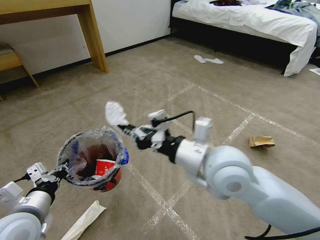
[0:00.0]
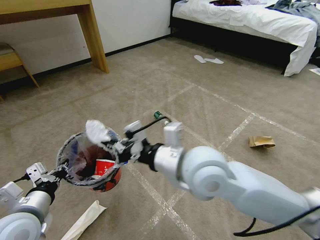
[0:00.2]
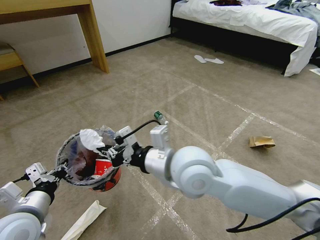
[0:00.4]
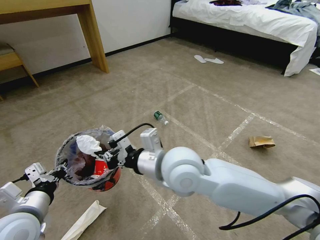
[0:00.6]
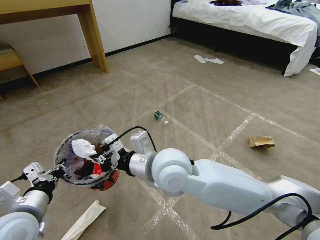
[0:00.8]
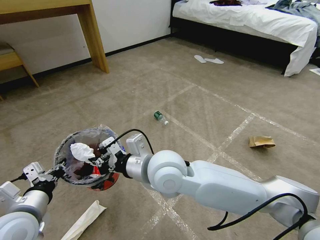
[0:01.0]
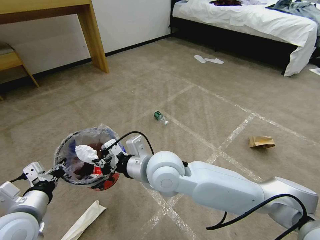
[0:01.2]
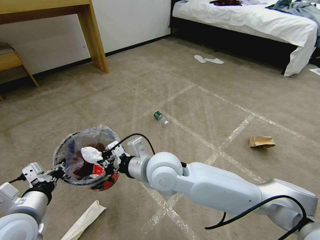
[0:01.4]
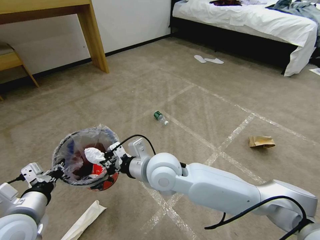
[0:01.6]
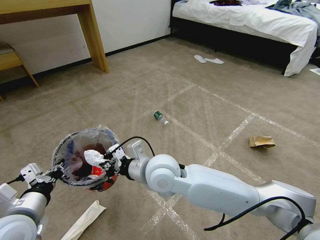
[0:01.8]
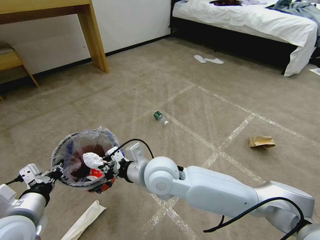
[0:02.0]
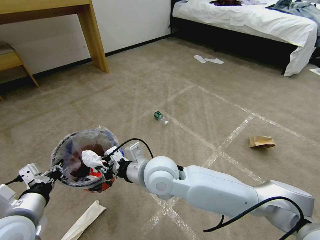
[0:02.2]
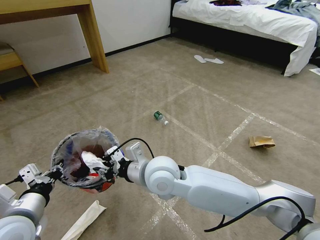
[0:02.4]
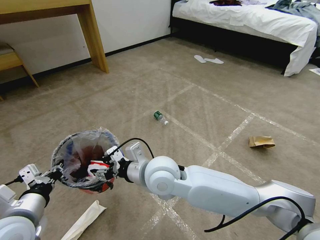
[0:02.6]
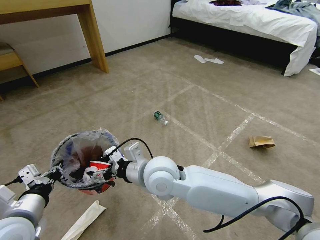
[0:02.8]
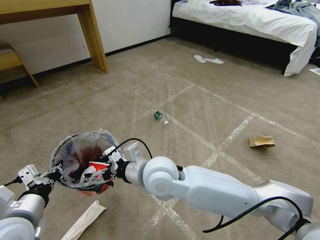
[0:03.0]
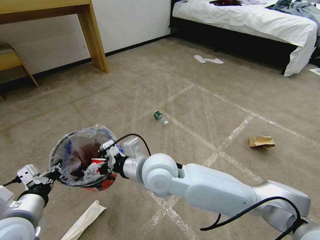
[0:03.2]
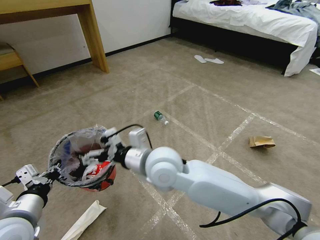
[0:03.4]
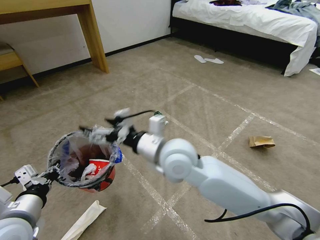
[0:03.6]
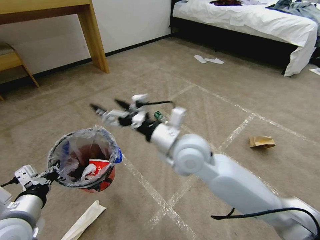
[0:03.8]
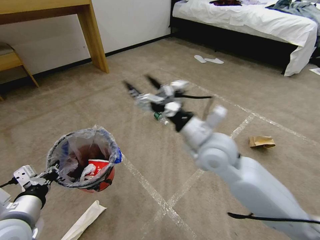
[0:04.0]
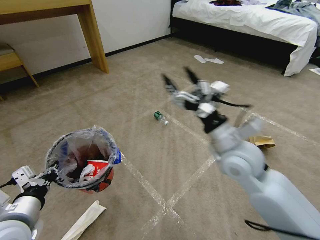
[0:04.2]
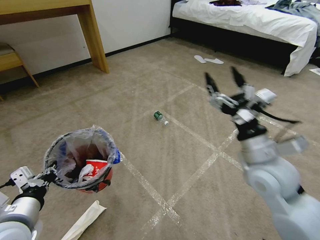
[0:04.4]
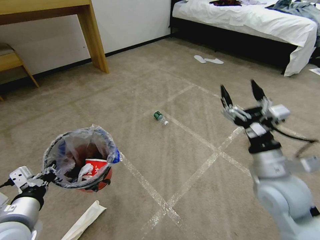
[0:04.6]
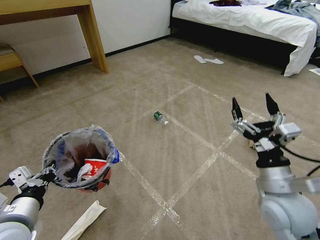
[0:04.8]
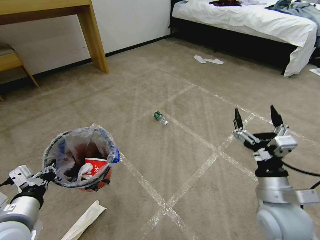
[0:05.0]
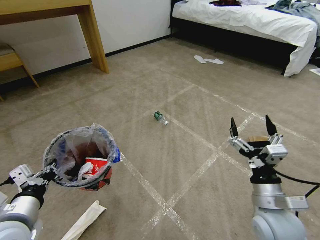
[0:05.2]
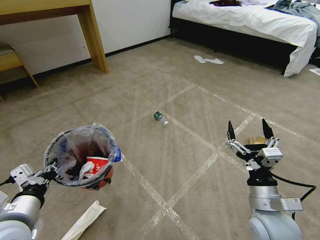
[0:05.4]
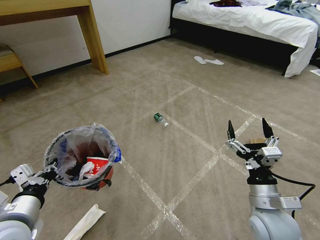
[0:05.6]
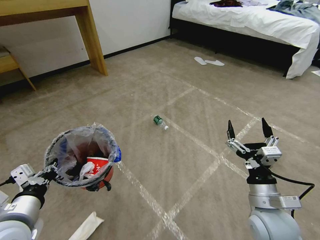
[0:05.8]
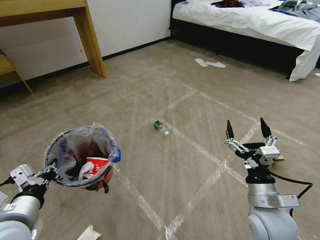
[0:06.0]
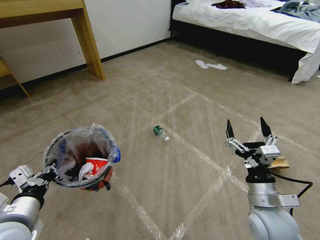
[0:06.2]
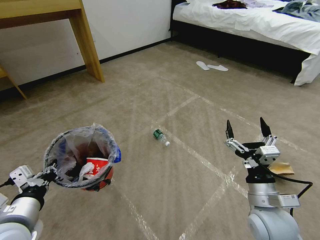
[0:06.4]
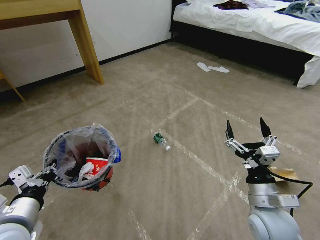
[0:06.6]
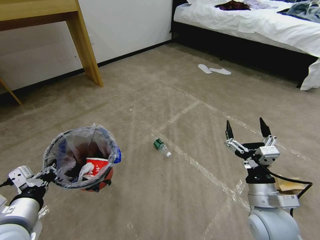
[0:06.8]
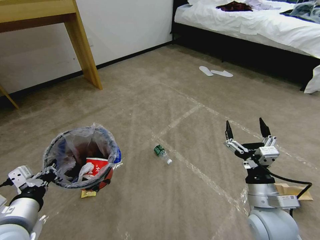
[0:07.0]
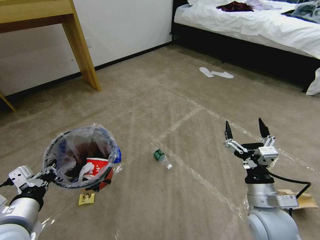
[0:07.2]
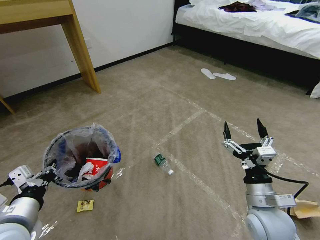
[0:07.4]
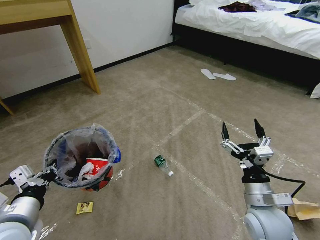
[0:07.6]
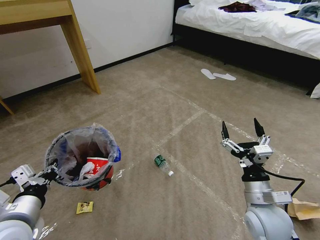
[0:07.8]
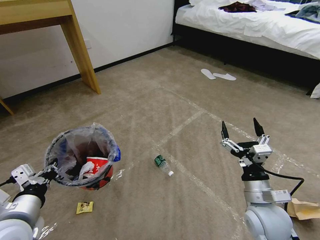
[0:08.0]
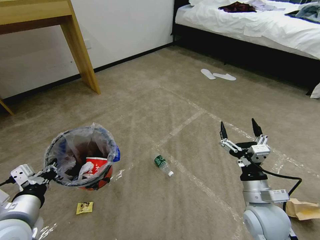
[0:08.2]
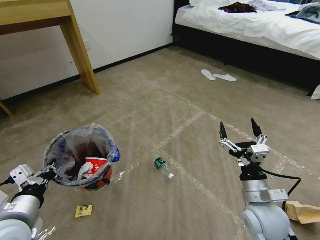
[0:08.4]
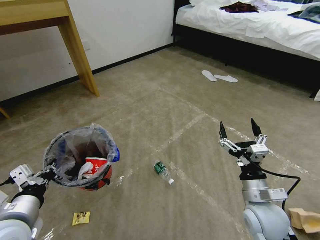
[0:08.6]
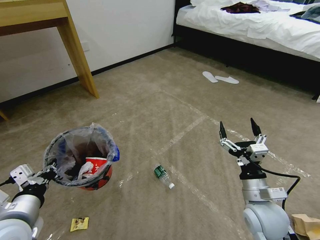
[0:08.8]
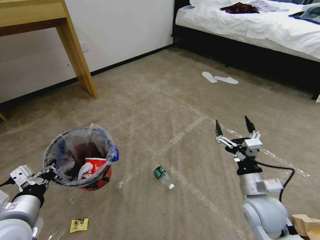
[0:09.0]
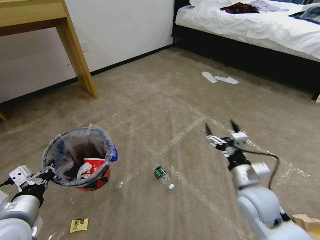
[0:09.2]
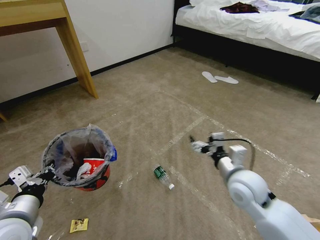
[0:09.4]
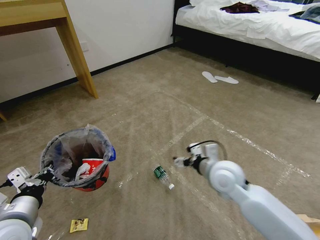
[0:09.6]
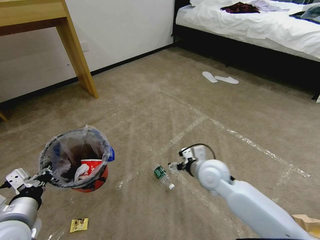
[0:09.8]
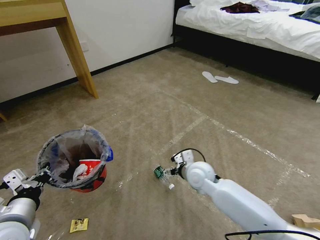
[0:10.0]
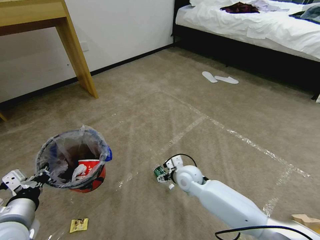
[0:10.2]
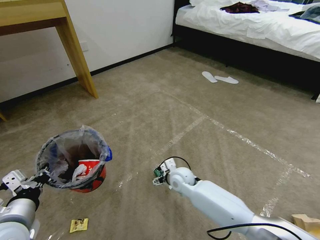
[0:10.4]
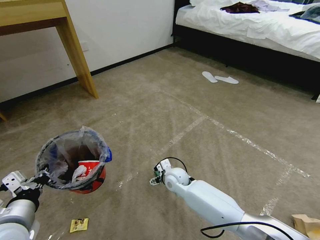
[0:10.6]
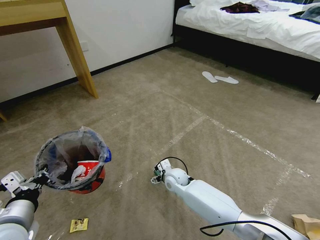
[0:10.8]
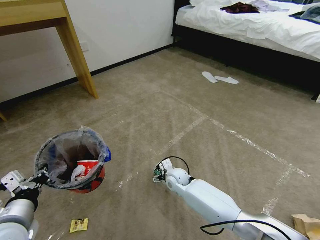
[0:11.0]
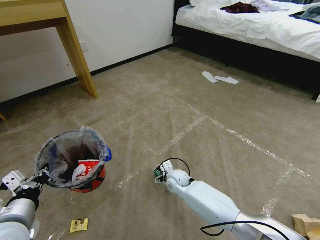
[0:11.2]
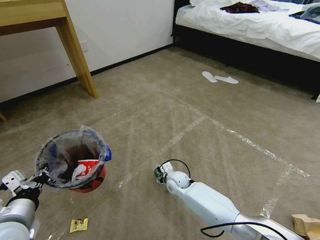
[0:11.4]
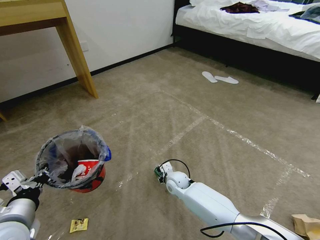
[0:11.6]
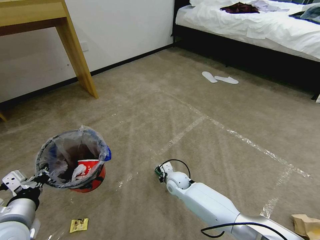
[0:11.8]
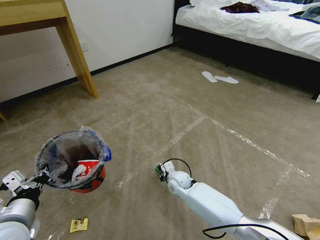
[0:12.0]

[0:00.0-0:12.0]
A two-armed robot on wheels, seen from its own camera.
Task of the whole recording: Pick up the trash bin and place the garbage on the floor into it.
0:00.0 to 0:01.6: The right gripper is displaced to the left and downward by about 15 cm.
0:01.6 to 0:03.0: The right gripper opens its fingers.
0:03.0 to 0:04.4: The right gripper travels to the right by some 25 cm.
0:04.4 to 0:06.0: The right gripper is displaced downward and backward by approximately 15 cm.
0:07.6 to 0:09.0: The grippers make only small movements.
0:09.0 to 0:10.4: The right gripper travels to the left, forward and downward by approximately 25 cm.
0:10.4 to 0:12.0: The right gripper moves downward, roughly 10 cm, and closes.

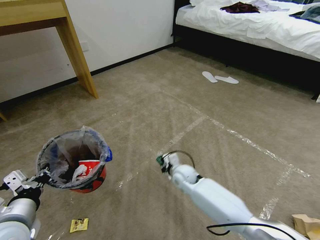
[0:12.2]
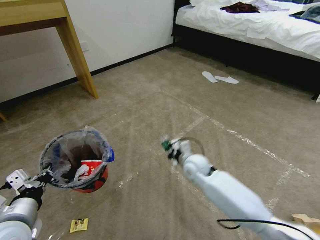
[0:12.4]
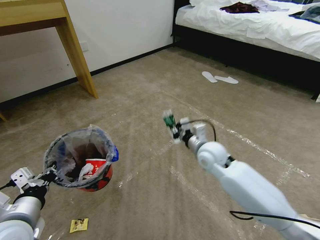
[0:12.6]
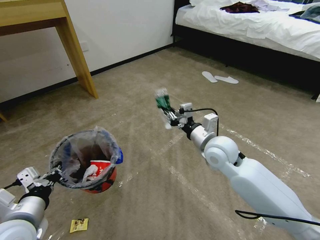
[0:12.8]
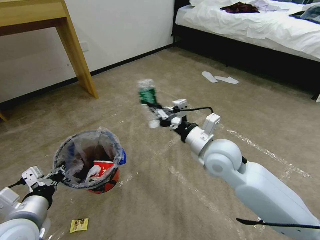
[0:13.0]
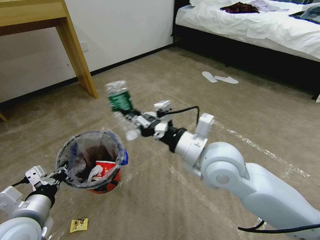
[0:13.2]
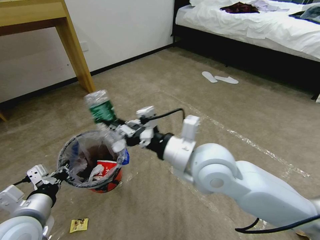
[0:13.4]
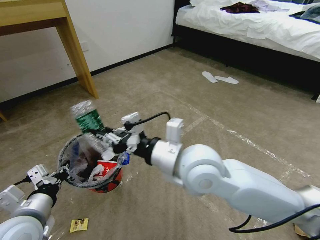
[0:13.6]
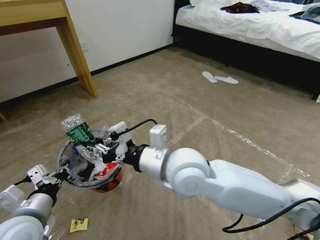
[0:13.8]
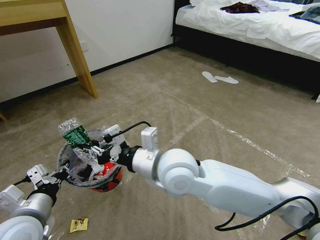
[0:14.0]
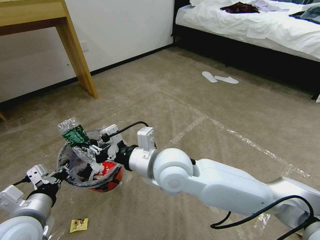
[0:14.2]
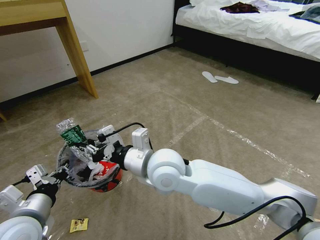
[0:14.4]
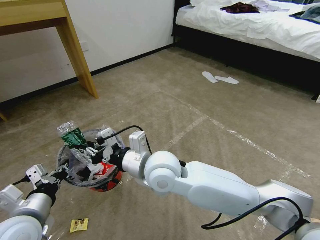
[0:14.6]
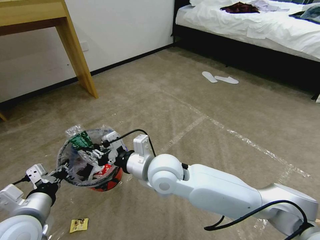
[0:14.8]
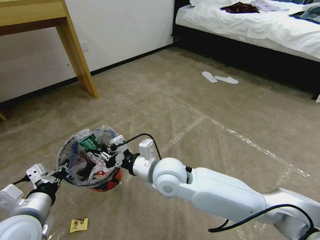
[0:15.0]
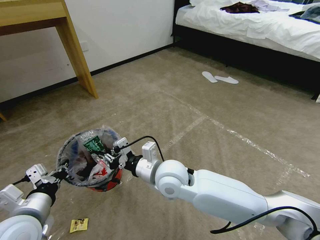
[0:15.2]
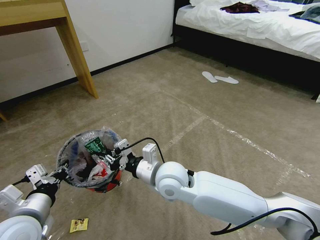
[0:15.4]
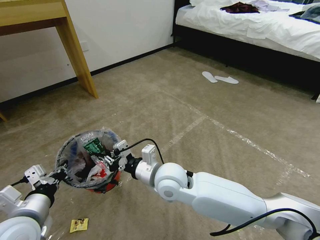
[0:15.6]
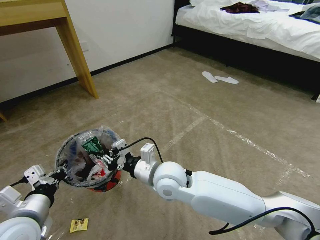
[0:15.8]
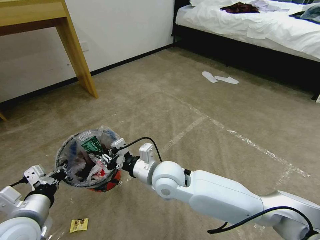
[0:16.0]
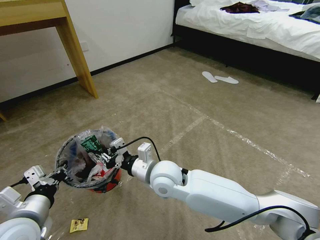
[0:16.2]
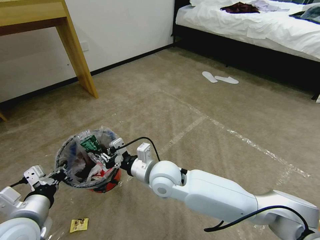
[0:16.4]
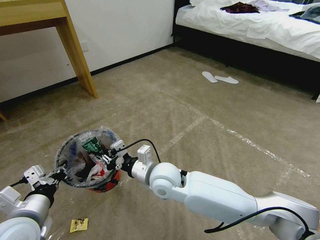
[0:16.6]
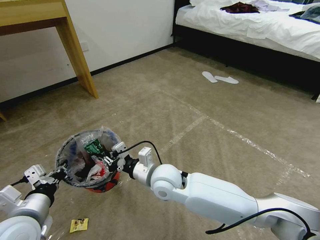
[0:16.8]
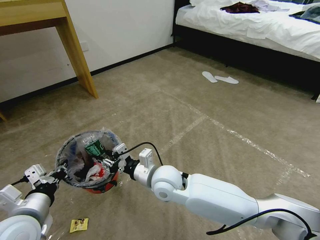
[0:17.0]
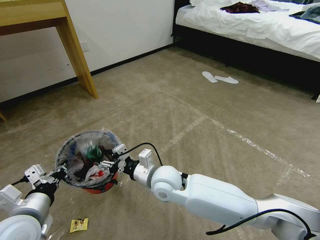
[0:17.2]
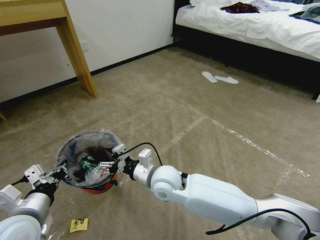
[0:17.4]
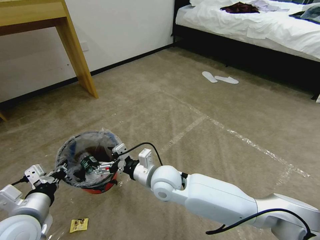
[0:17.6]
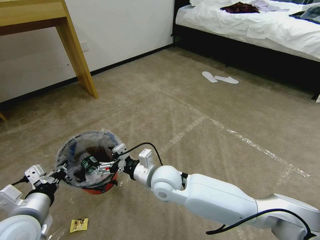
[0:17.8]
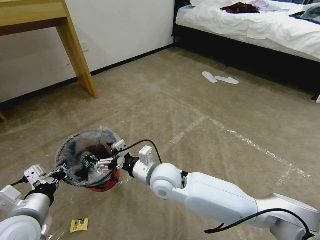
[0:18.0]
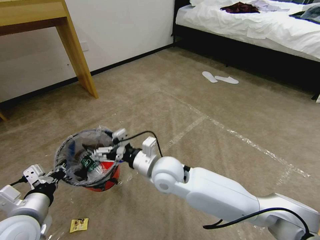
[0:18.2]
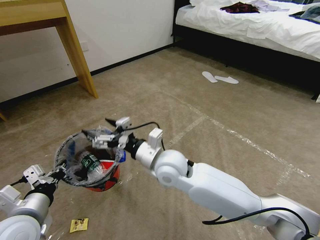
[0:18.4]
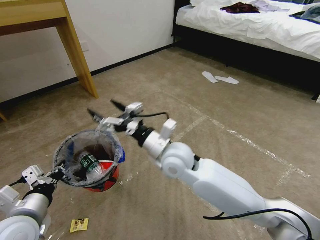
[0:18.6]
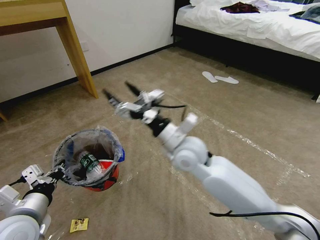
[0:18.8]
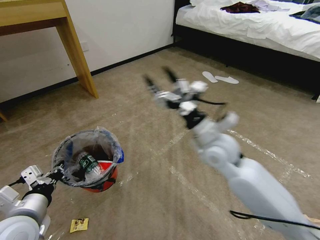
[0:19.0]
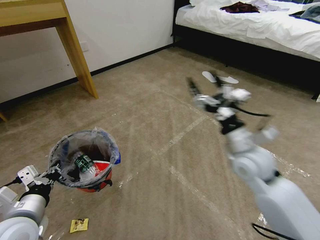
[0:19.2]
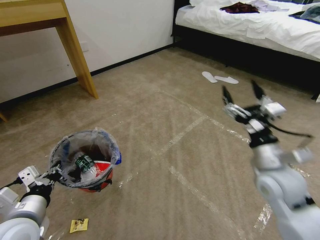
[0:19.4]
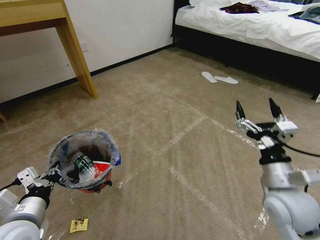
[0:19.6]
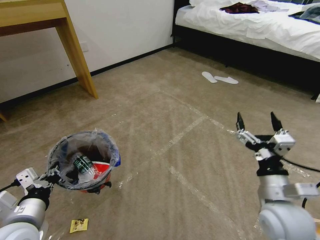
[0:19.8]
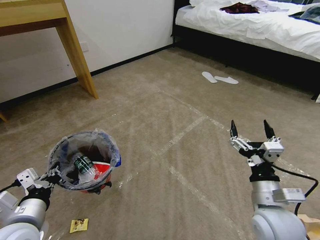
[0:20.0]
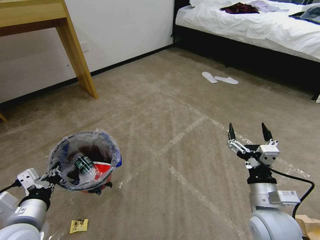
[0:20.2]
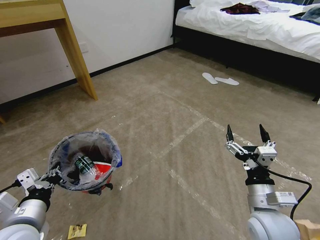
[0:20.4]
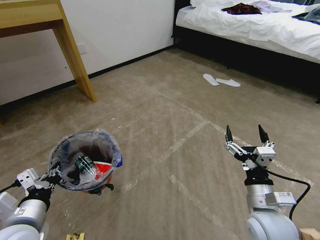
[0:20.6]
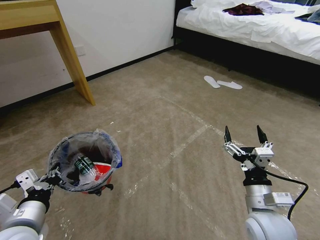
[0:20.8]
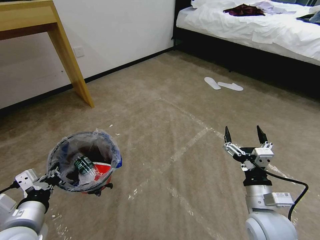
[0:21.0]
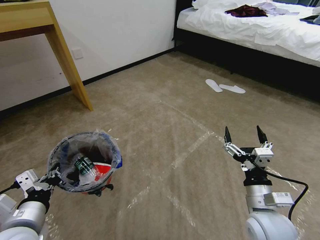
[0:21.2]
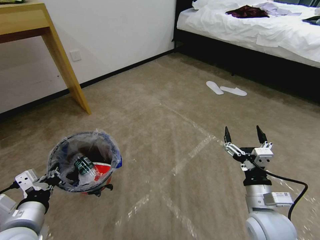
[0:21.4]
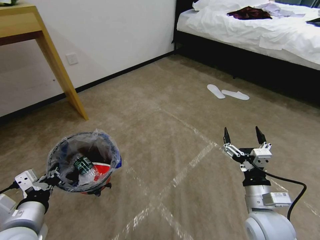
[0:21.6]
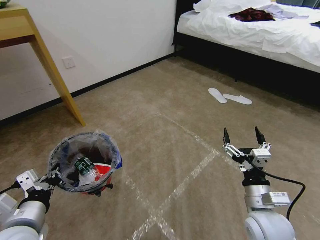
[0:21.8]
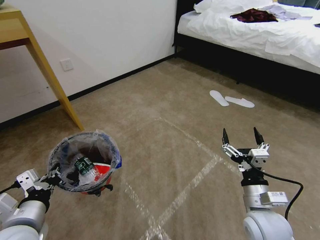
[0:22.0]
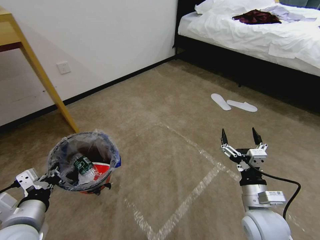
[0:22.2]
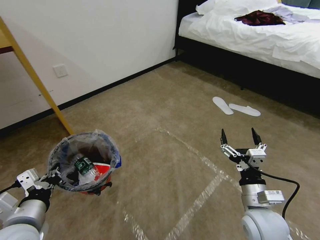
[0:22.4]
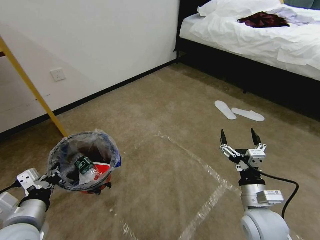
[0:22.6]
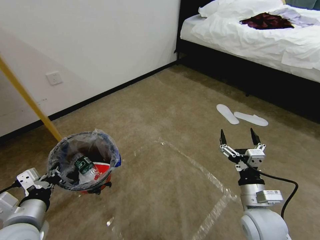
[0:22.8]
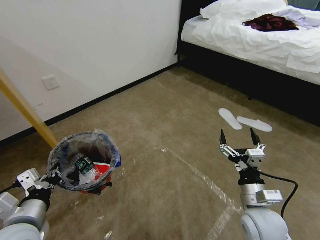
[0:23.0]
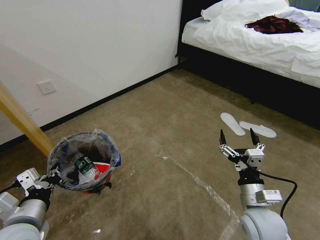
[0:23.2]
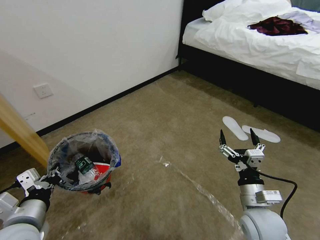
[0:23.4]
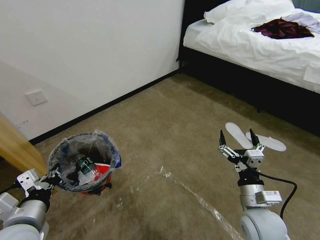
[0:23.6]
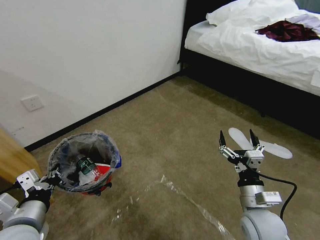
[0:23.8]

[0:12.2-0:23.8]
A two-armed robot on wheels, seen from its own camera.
Task of the whole recording: Pick up the trash bin and place the garbage on the floor into it.
0:12.2 to 0:13.6: The right gripper is displaced upward and backward by about 35 cm.
0:13.6 to 0:15.0: The right gripper travels downward and to the left by about 10 cm.
0:15.0 to 0:16.6: The grippers stay close to where they were, moving slightly.
0:16.6 to 0:18.0: The right gripper opens its fingers.
0:18.0 to 0:19.4: The right gripper moves to the right, about 30 cm.
0:19.4 to 0:21.0: The right gripper is displaced backward and downward by approximately 10 cm.
